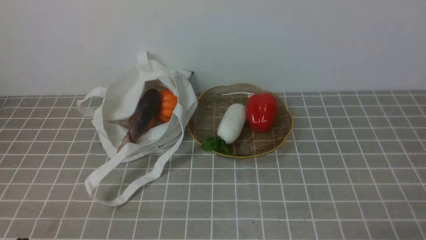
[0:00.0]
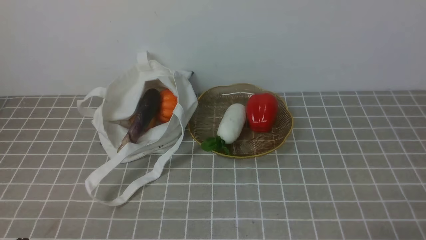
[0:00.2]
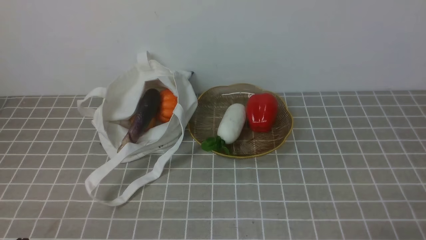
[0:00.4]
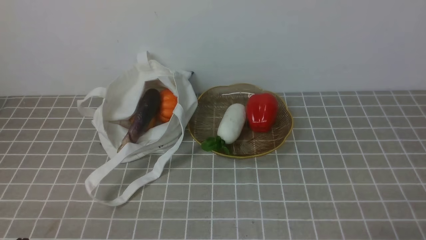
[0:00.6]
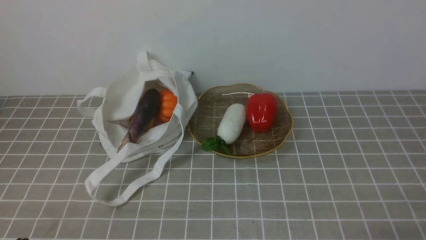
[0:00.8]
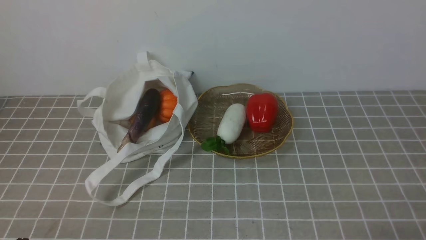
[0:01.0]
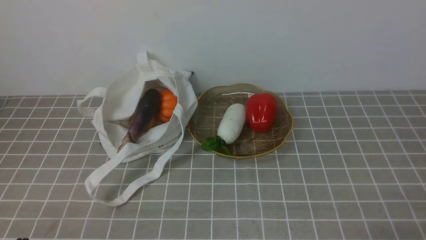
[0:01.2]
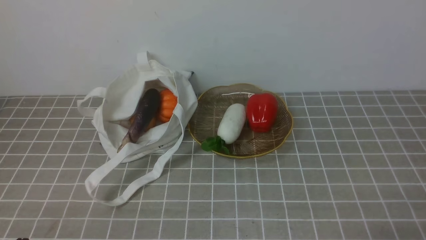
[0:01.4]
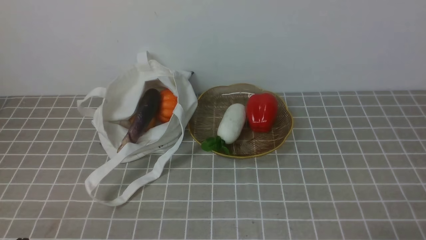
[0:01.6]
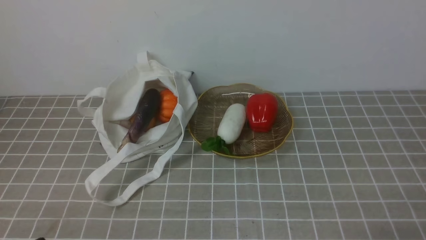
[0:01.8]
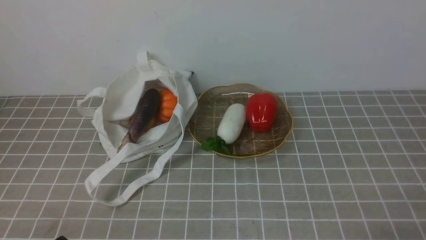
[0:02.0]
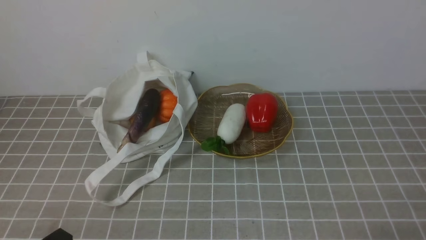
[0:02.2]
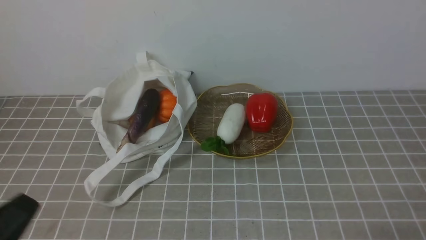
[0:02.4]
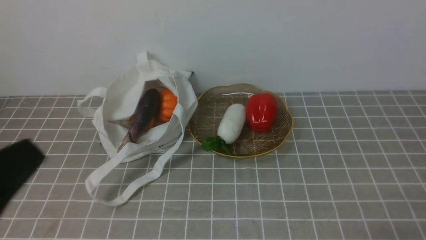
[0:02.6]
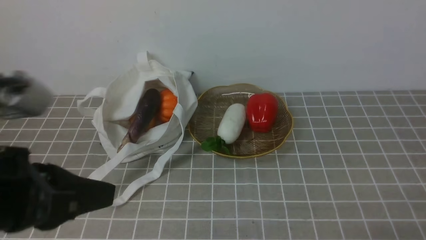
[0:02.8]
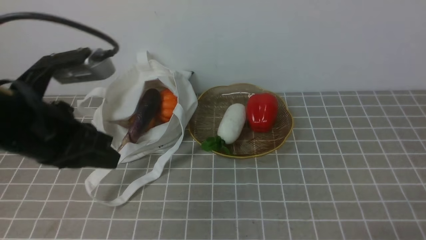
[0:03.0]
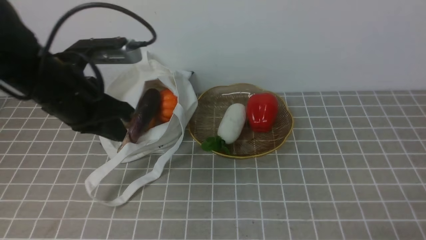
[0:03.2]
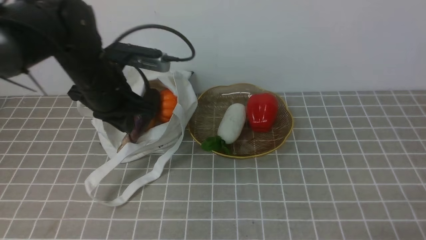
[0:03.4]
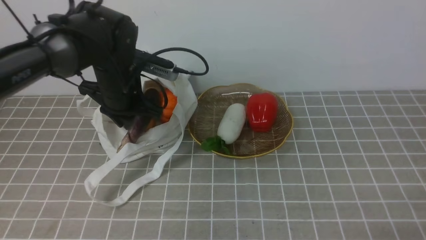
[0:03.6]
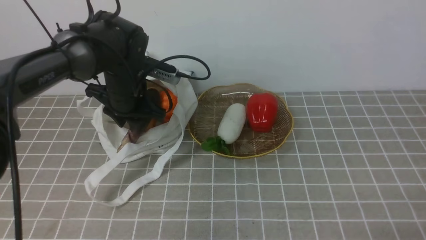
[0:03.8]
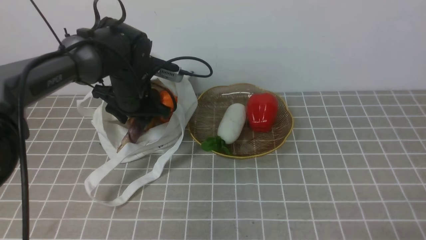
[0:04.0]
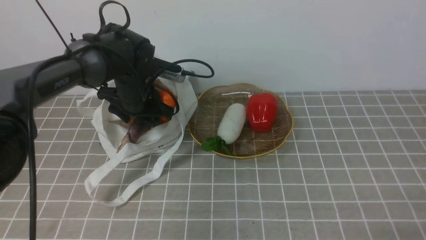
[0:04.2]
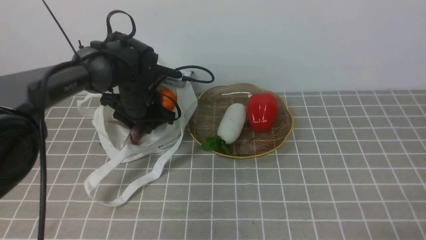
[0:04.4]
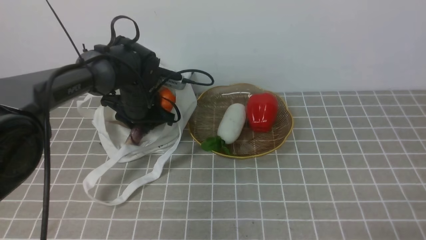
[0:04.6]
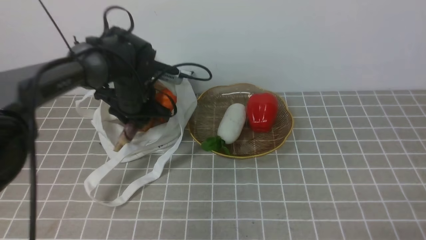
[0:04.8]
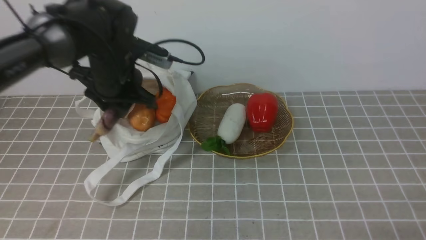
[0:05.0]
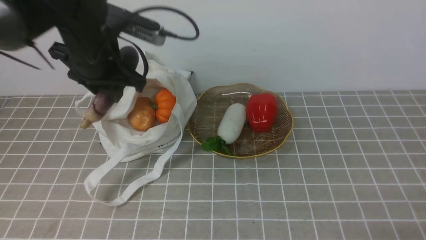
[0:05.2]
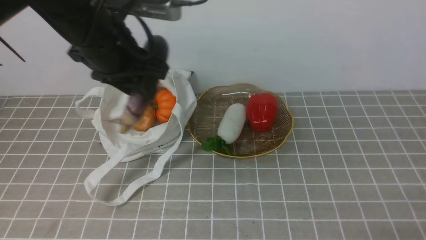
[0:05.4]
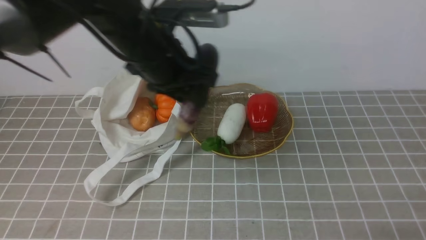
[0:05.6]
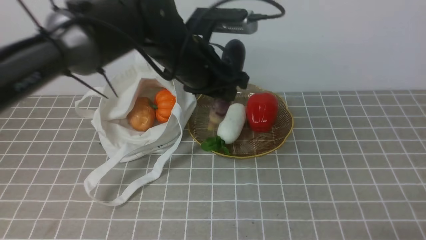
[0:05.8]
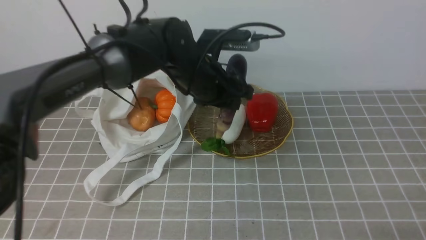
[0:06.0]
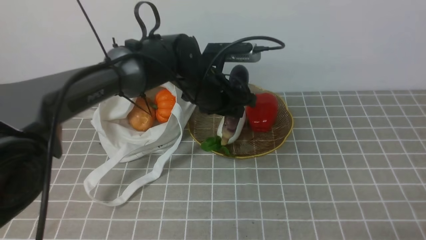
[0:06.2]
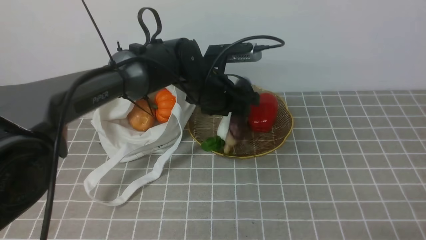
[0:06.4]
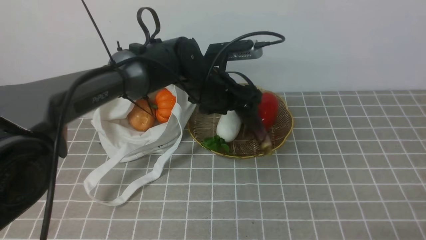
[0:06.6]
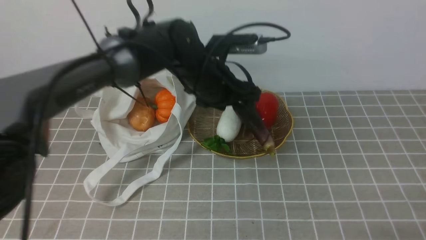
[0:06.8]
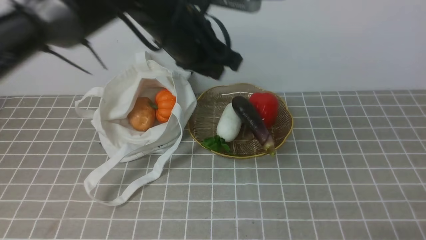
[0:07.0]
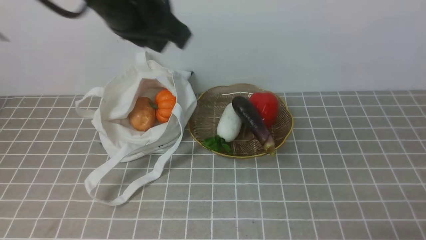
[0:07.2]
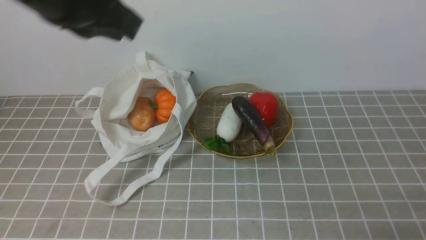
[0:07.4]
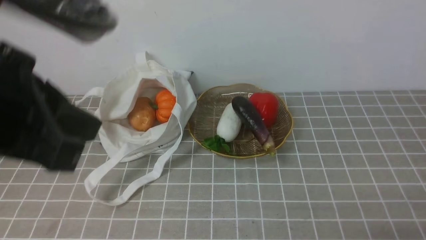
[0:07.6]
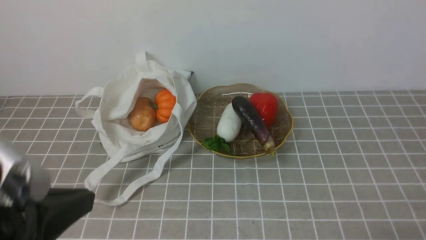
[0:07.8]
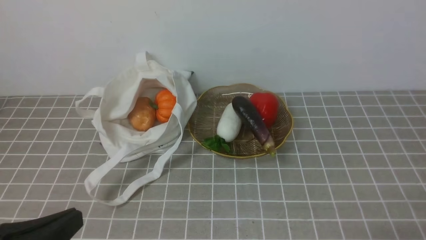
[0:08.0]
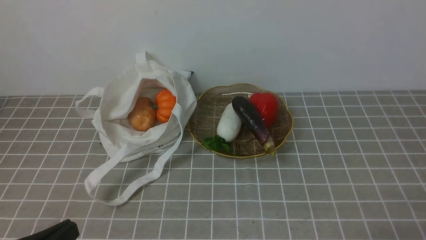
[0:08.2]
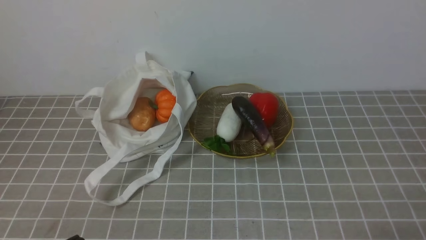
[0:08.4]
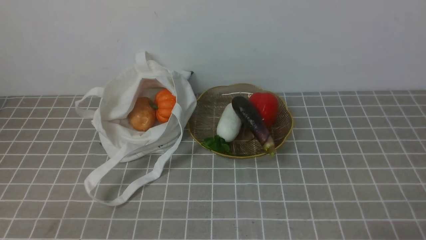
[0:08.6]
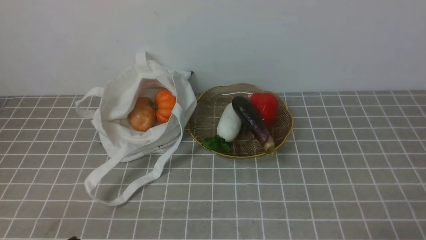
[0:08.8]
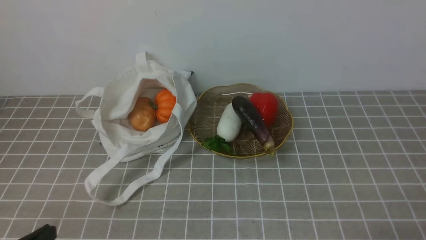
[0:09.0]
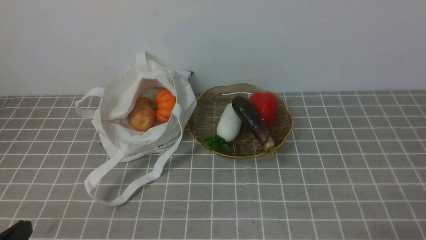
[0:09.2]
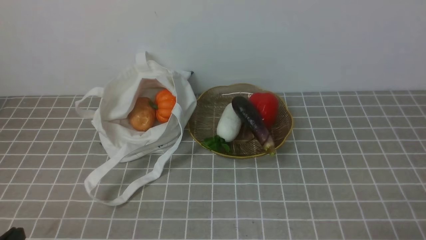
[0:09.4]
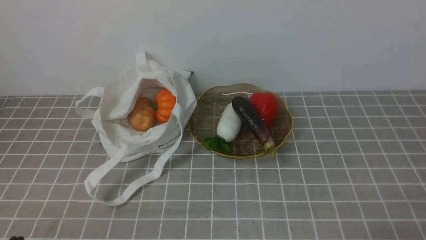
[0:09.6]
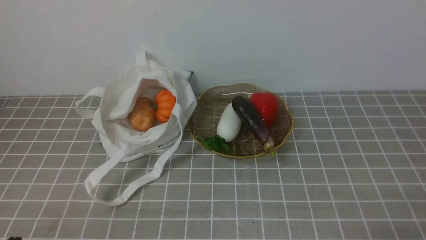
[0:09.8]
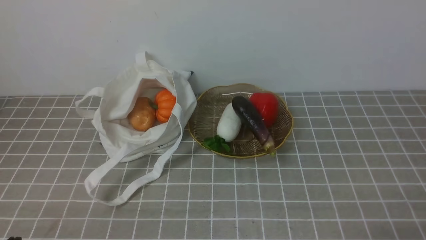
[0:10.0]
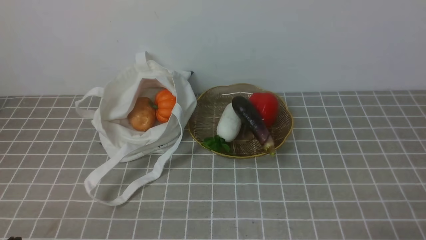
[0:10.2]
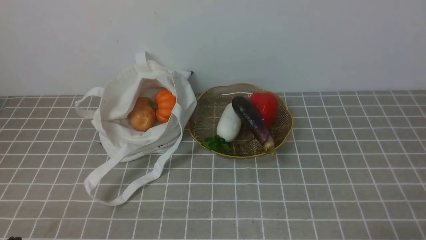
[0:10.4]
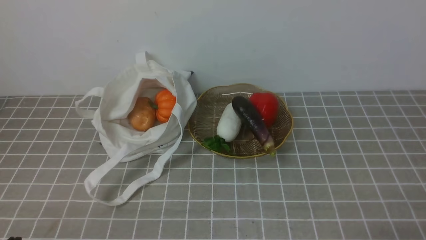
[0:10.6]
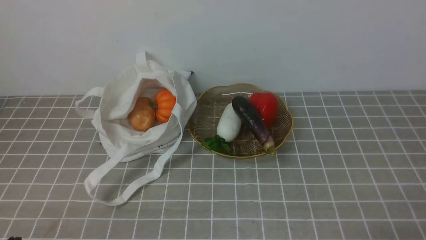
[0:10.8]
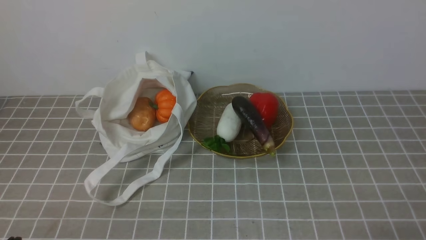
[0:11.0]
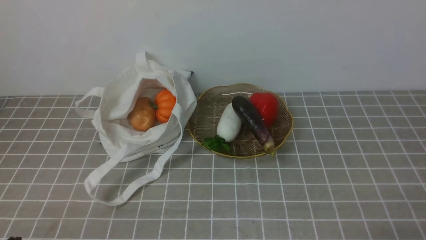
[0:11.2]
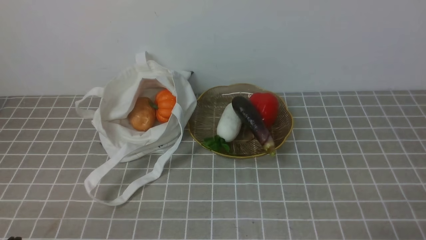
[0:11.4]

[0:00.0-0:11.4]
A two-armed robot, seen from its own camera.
Task of the whole recording: take vegetables from bag on grey coffee tablecloth place on plate.
Step, 0:00.0 to 0:04.4: Grasp the eggplant with left gripper.
Step, 0:04.8 to 0:06.8: Place the eggplant on the plate with left gripper.
0:01.4 to 0:02.8: The left gripper shifts some 20 cm upward.
0:02.8 to 0:04.2: The left gripper travels forward and downward by some 35 cm, and opens.
0:04.2 to 0:05.6: The left gripper goes approximately 15 cm upward and backward.
0:05.6 to 0:07.2: The left gripper travels upward by some 5 cm, and closes.
0:07.2 to 0:08.6: The left gripper moves backward, downward and to the left, about 35 cm.
0:10.0 to 0:11.4: Neither gripper changes place.
